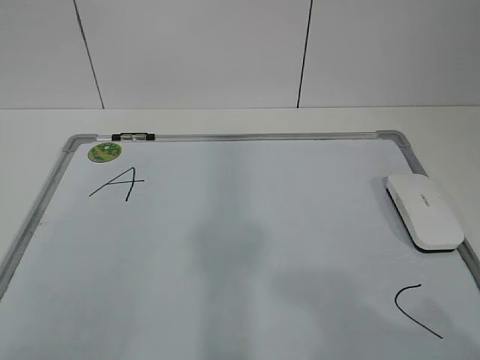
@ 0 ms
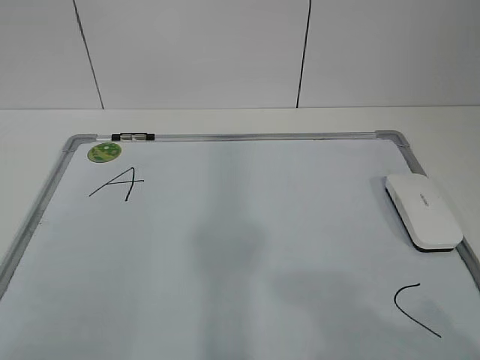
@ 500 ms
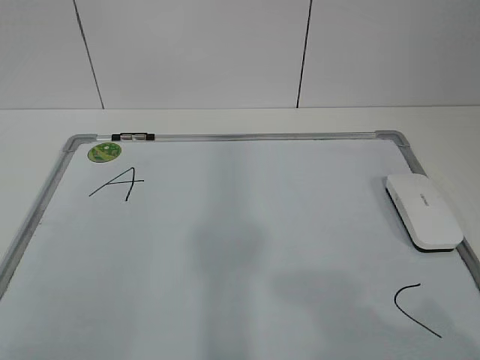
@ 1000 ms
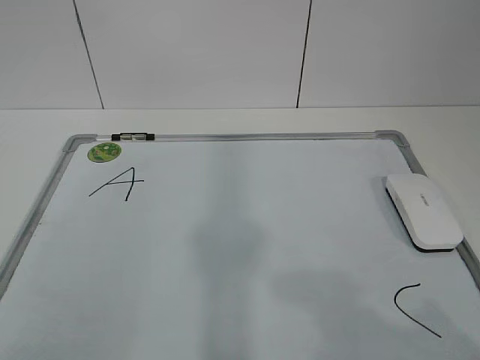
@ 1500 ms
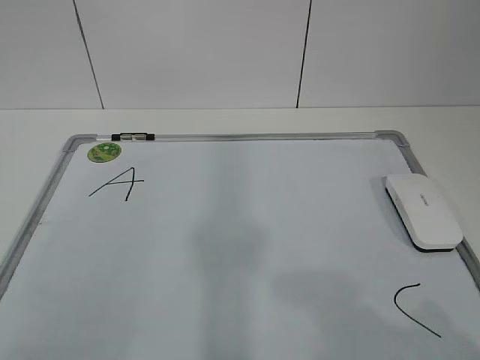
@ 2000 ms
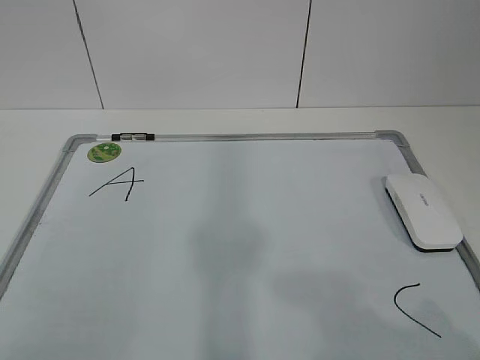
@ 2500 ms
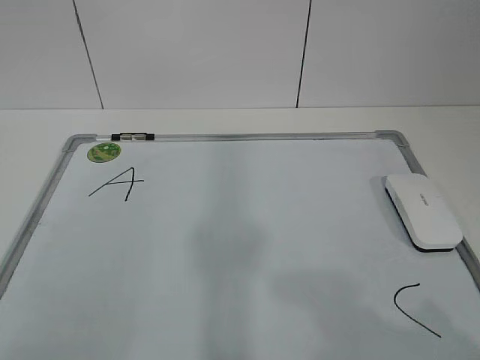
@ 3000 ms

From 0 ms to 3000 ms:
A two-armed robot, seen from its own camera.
Task of the whole recording: pick up the eraser on the blackboard and erase the letter "B".
From 0 ms to 3000 ms: Neither gripper changes place.
